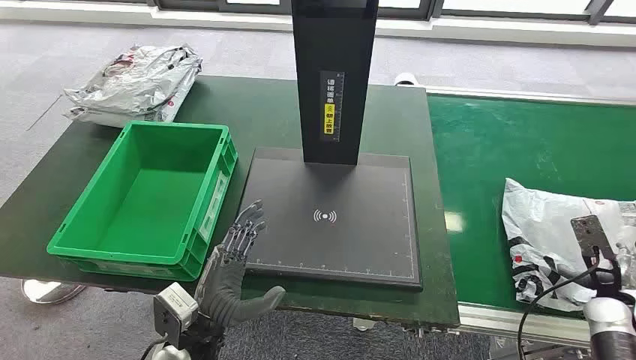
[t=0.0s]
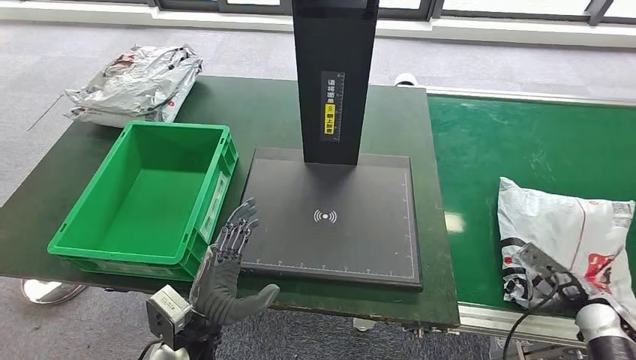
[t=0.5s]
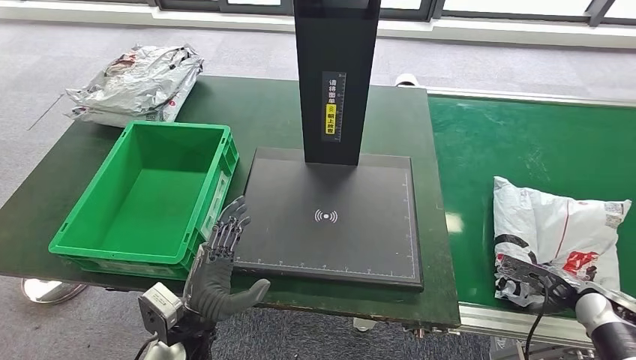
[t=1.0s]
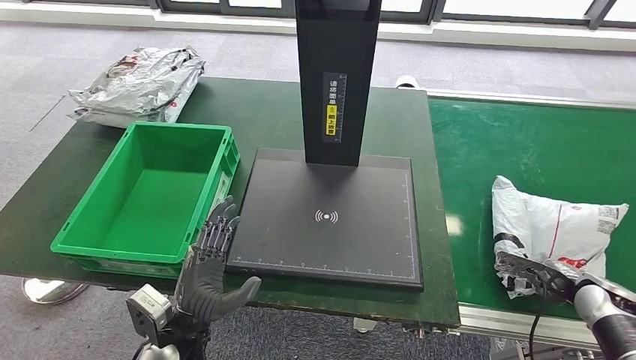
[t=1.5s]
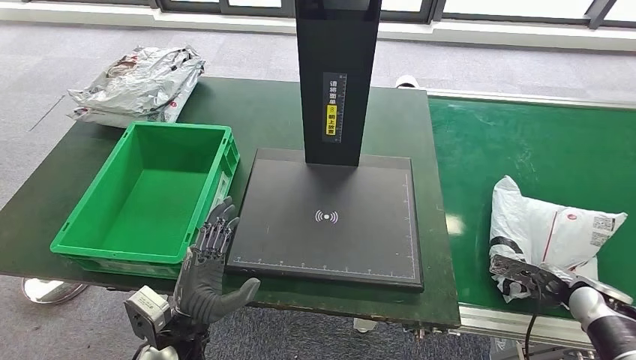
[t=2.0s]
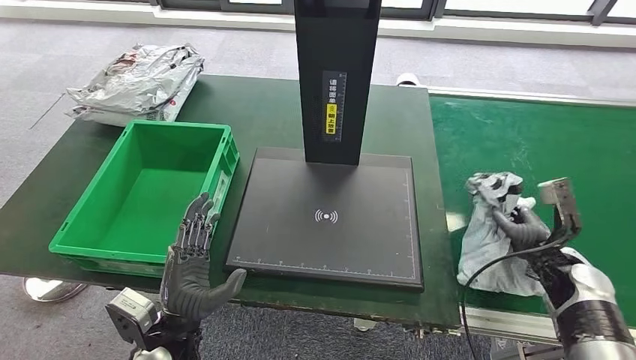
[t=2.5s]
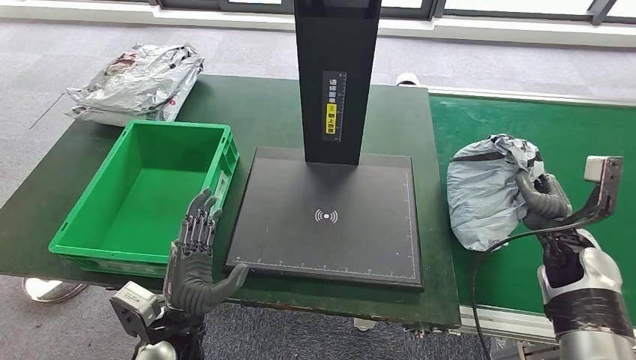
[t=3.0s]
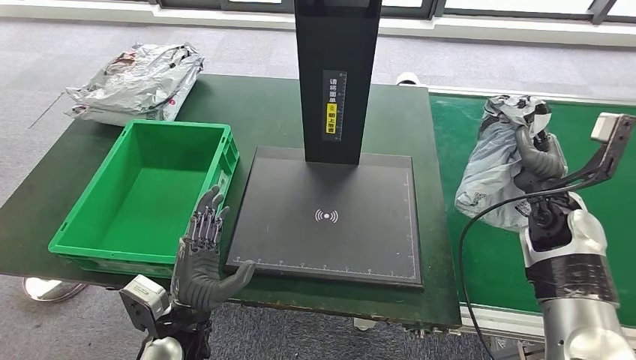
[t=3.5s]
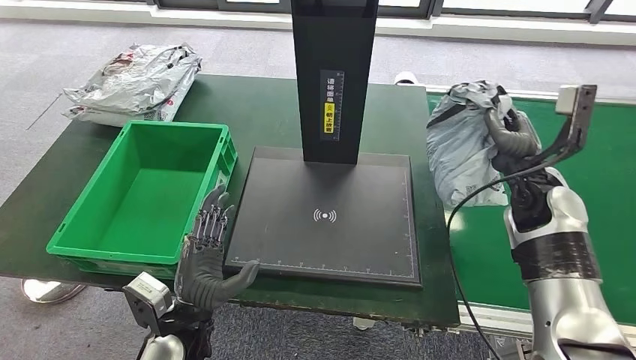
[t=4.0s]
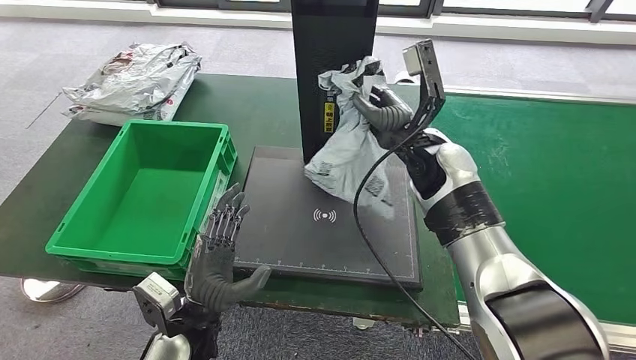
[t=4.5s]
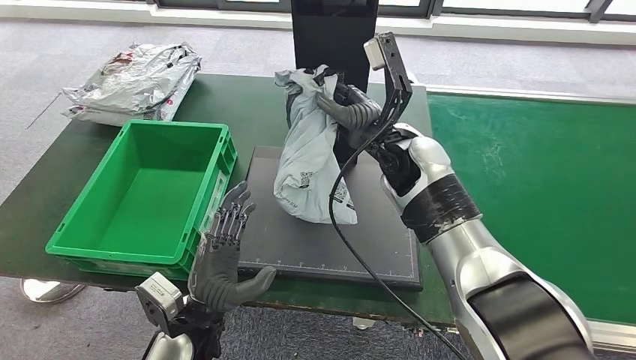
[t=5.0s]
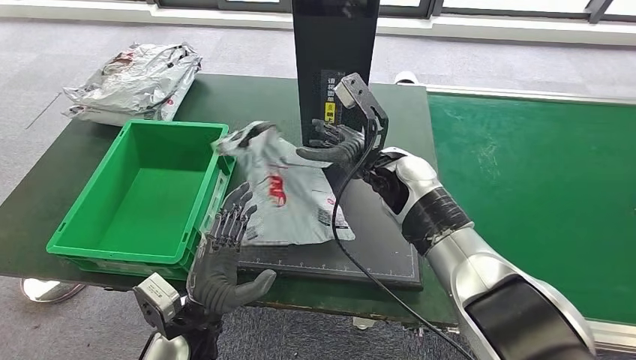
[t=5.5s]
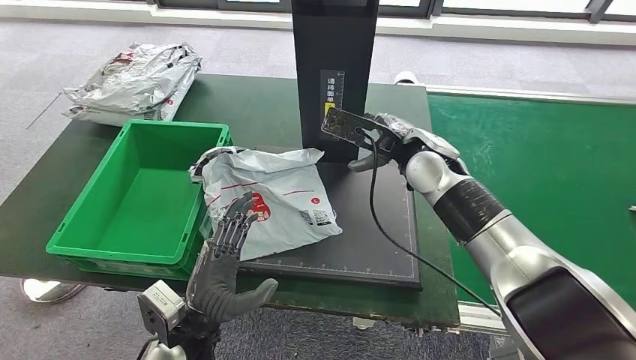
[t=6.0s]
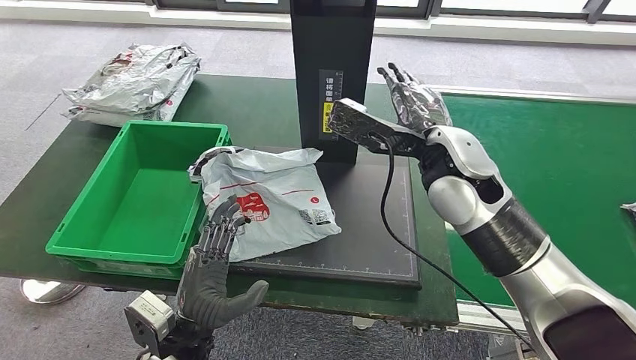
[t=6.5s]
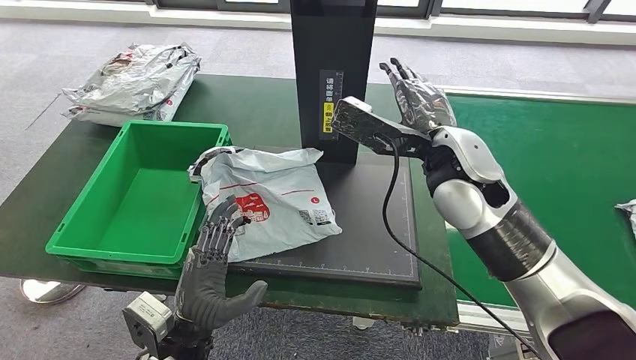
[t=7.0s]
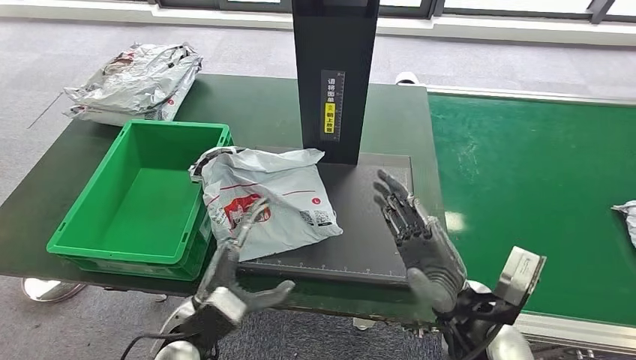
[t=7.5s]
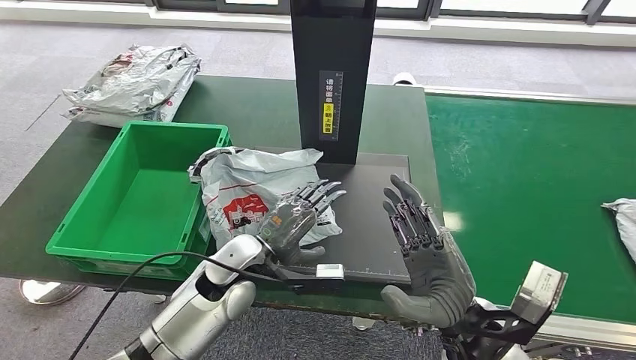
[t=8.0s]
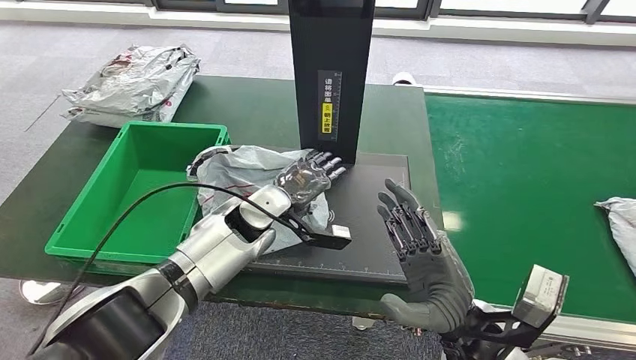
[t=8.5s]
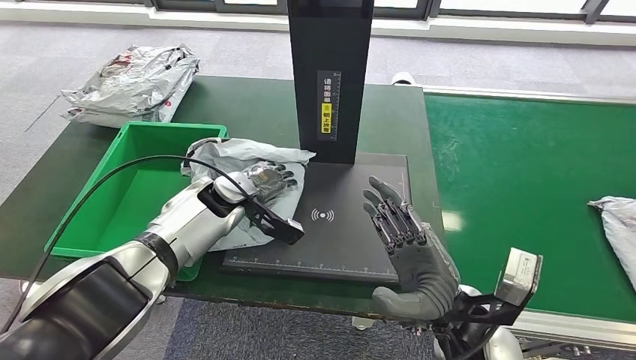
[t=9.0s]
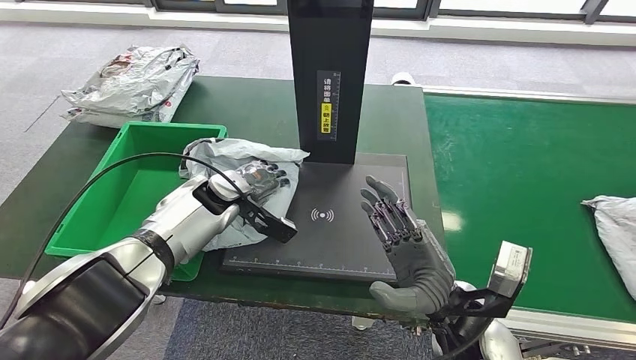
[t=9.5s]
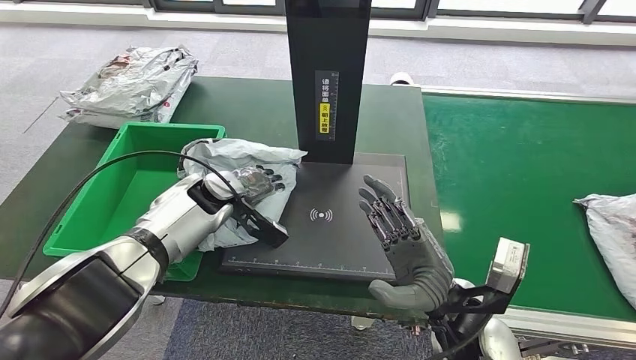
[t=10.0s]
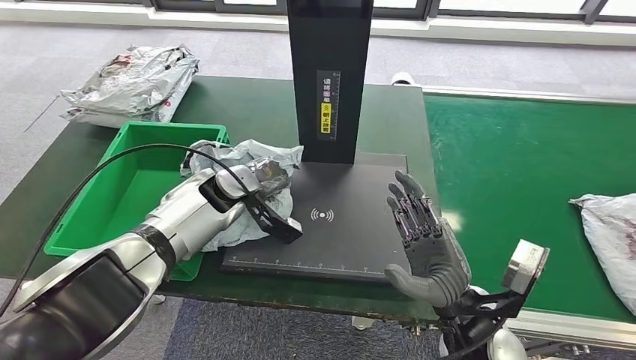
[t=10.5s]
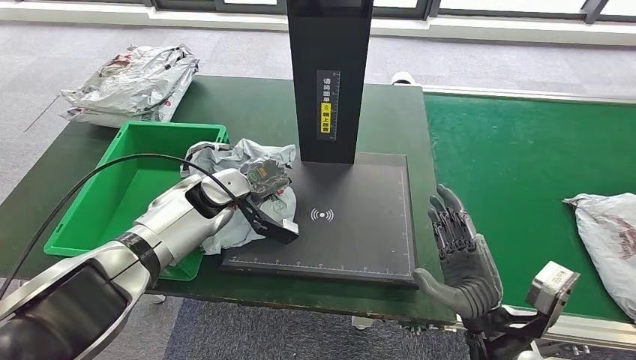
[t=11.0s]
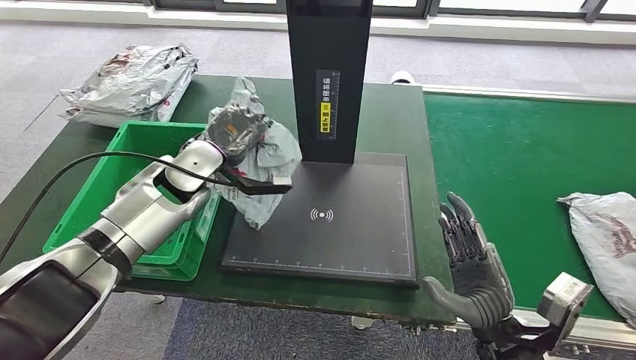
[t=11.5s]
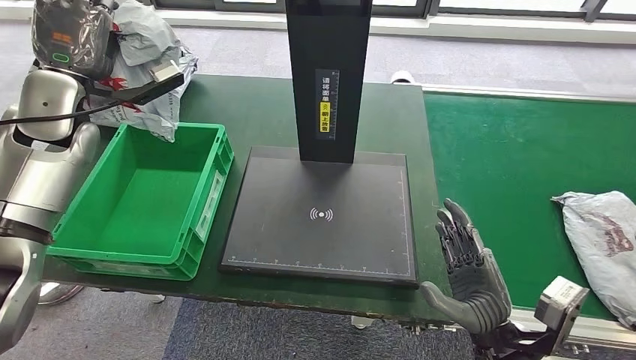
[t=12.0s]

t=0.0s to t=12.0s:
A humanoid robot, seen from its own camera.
Step, t=0.0s to t=3.5s: Take the parcel off the conveyor belt.
Step, t=4.0s to t=6.0s: Place the parcel onto the inbound machine.

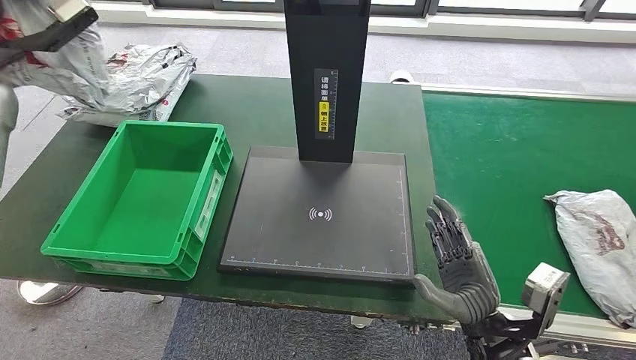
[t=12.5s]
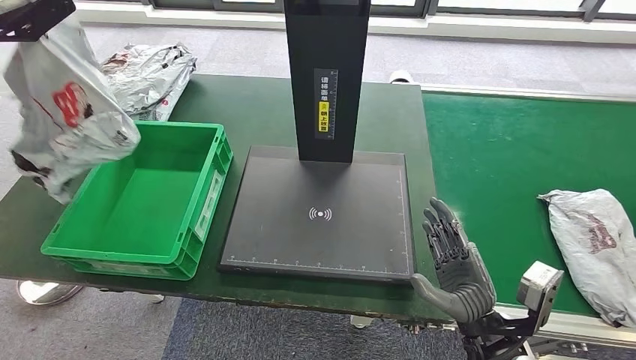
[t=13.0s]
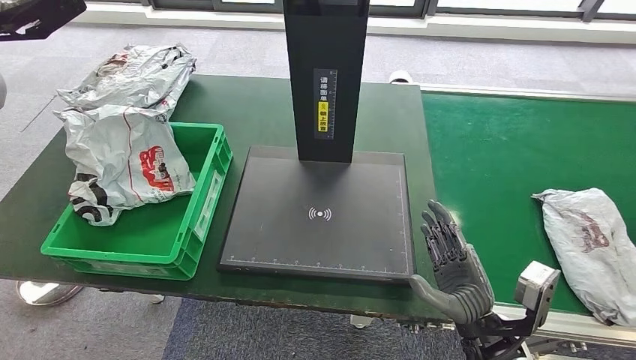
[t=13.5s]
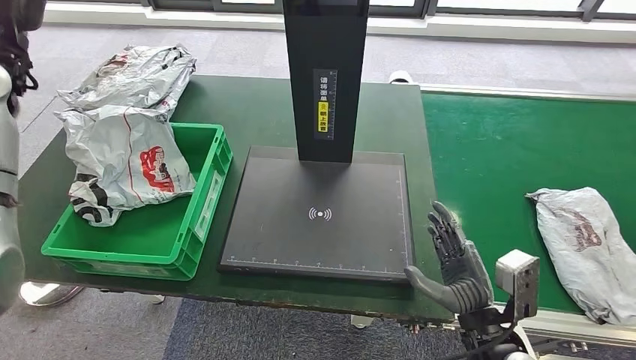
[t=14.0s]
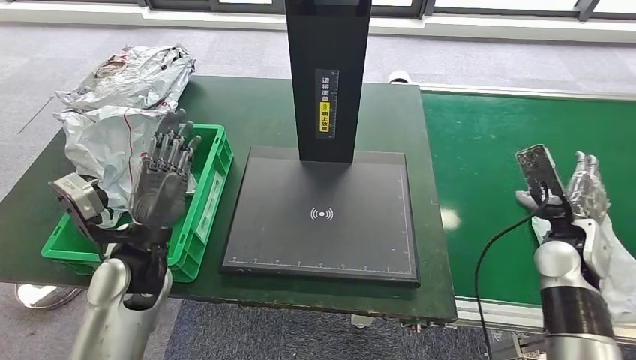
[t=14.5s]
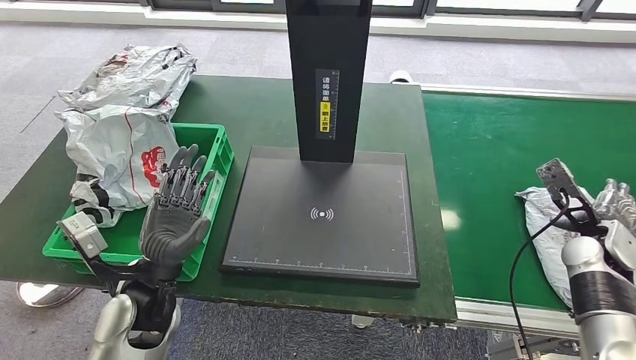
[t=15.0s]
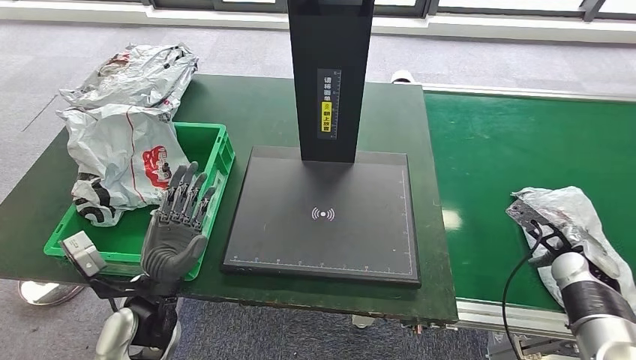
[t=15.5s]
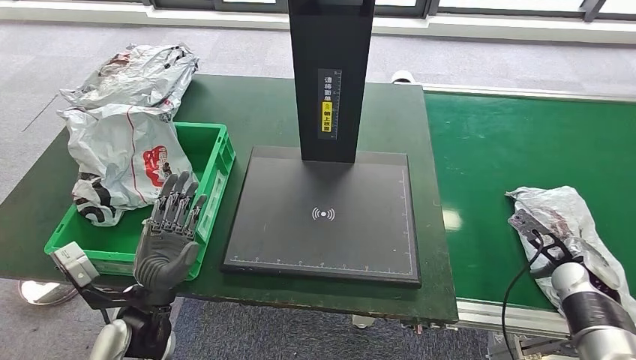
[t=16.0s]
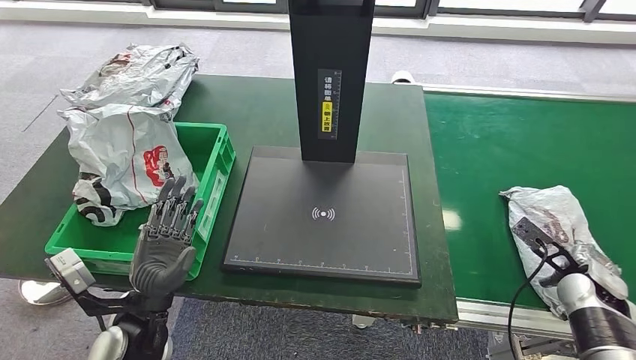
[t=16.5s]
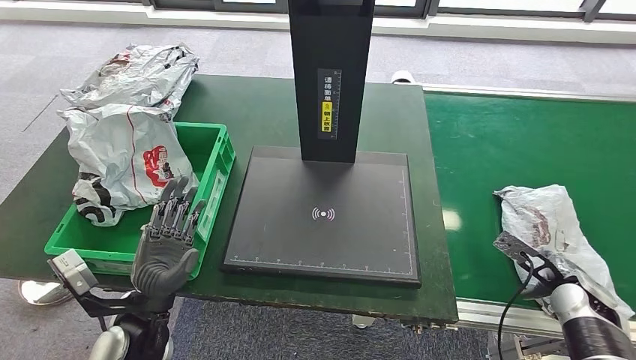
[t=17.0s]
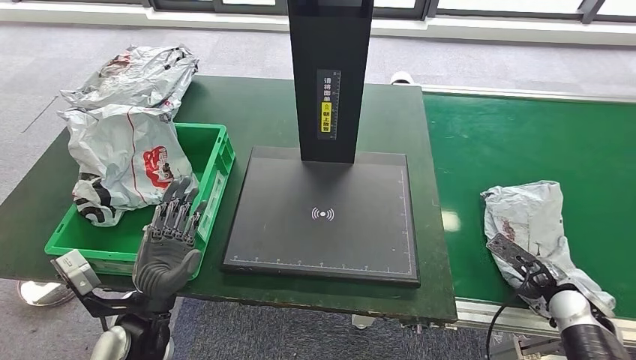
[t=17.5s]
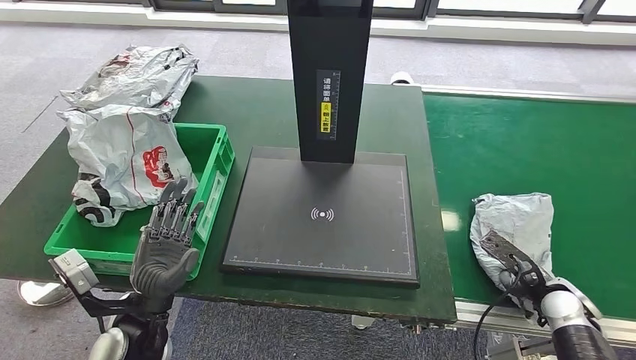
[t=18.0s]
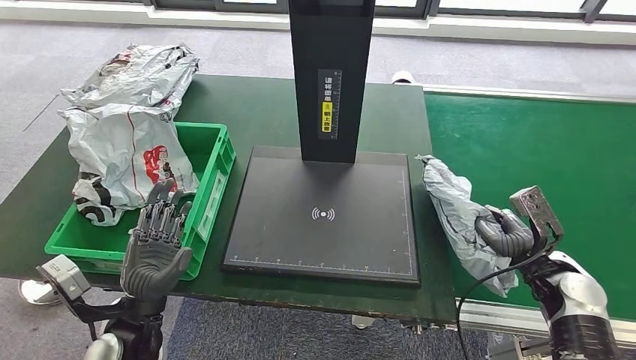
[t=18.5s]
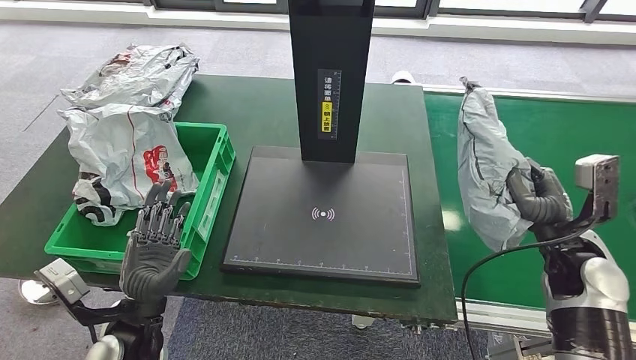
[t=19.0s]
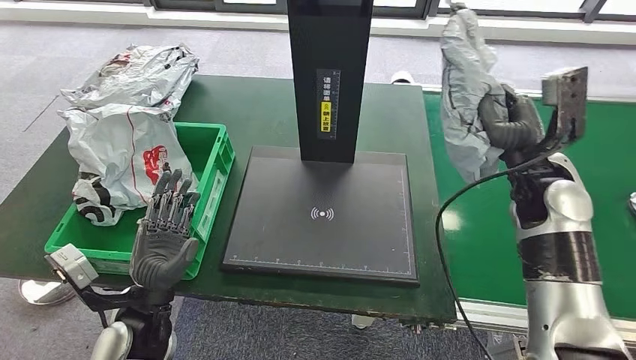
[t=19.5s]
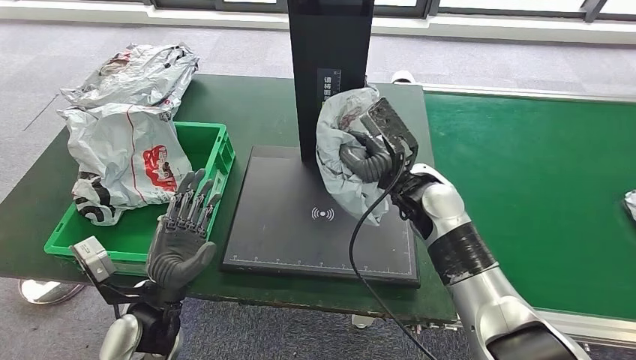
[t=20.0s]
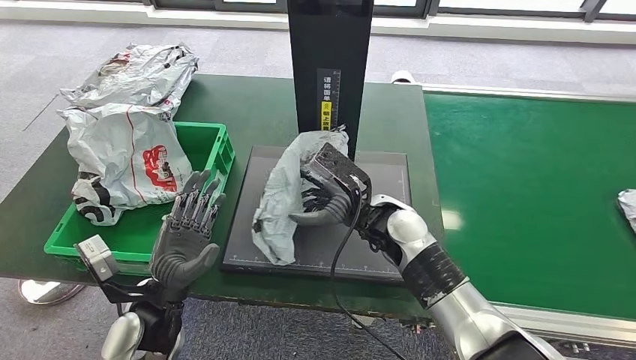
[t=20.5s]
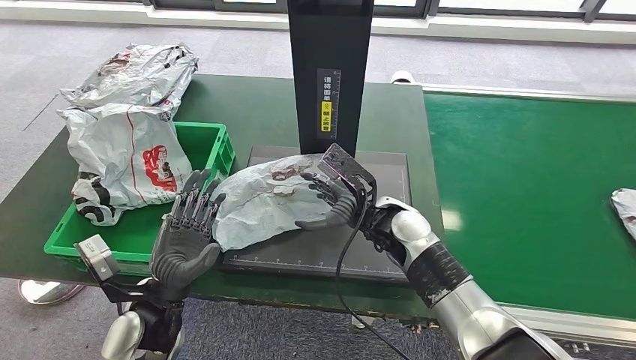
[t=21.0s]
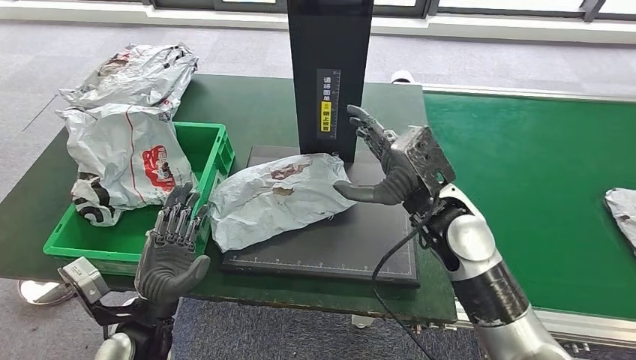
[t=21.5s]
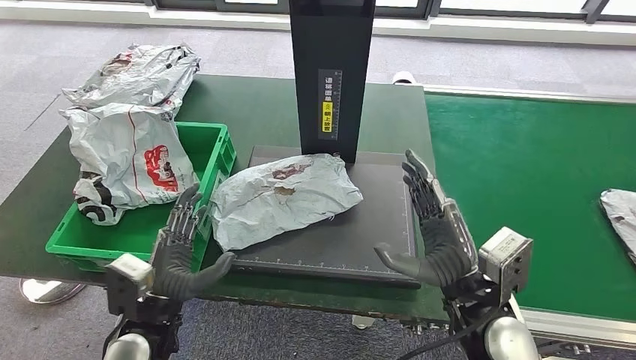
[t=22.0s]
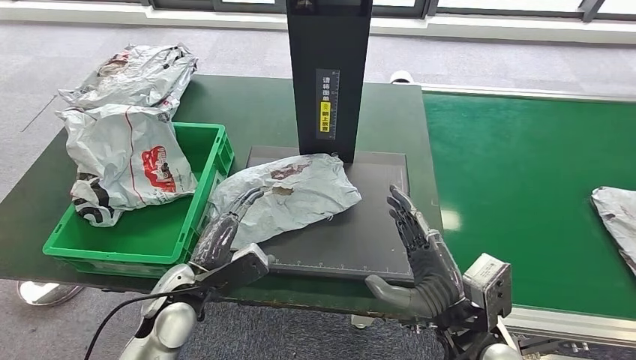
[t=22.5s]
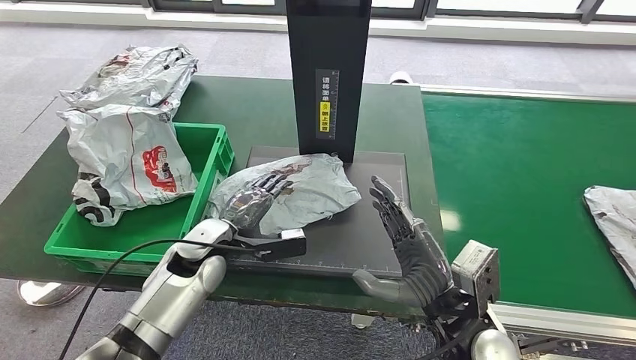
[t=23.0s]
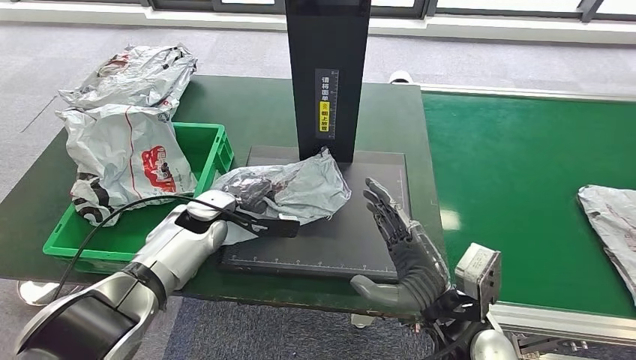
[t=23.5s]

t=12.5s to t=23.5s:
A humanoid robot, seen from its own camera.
Step, t=12.5s to t=14.5s: Put the parcel inside the courier box.
Step, t=15.0s to t=18.5s: Pick up the parcel from the conveyor belt.
Step, t=19.0s to t=21.5s: Place the parcel onto the inbound machine.
t=16.0s to t=18.0s: The right hand moves about 5 cm.
t=20.0s to t=21.5s: The right hand shifts about 5 cm backward.
